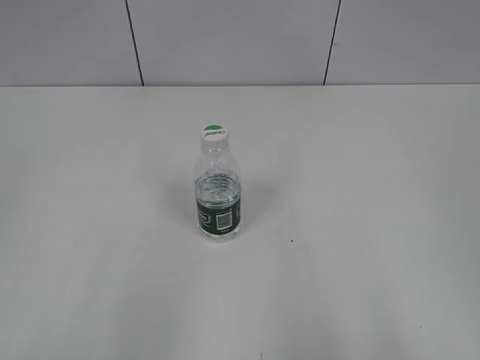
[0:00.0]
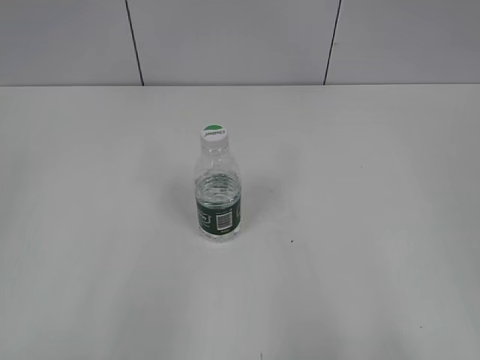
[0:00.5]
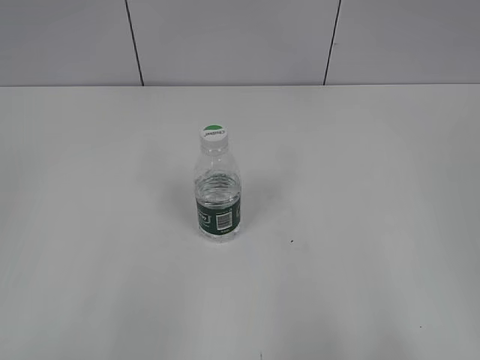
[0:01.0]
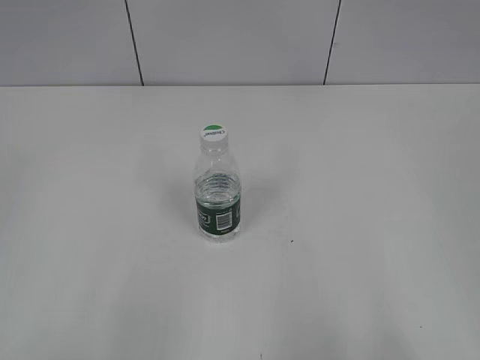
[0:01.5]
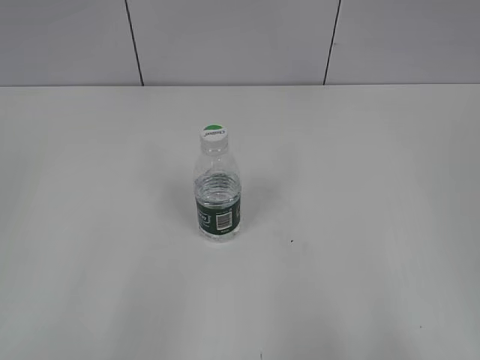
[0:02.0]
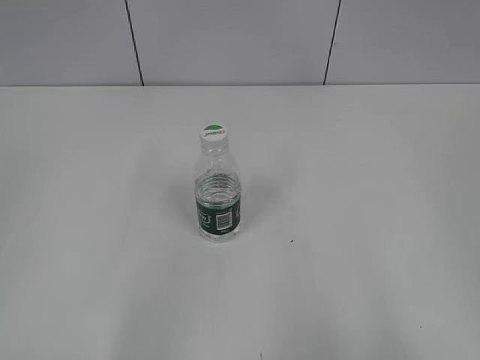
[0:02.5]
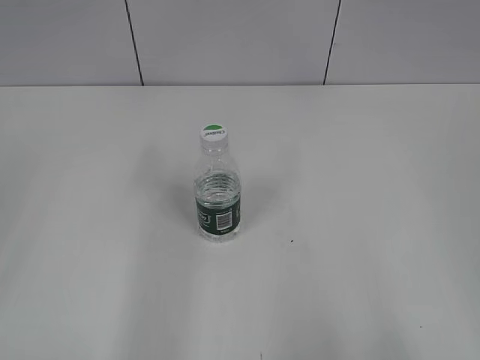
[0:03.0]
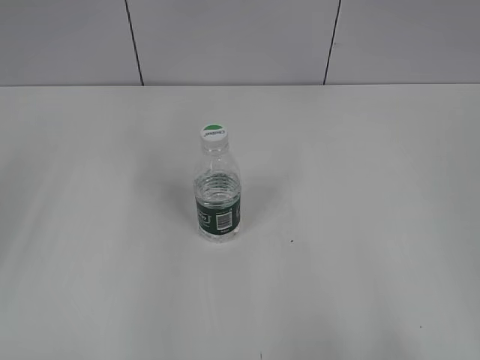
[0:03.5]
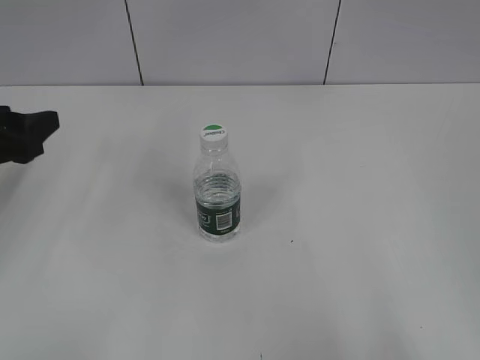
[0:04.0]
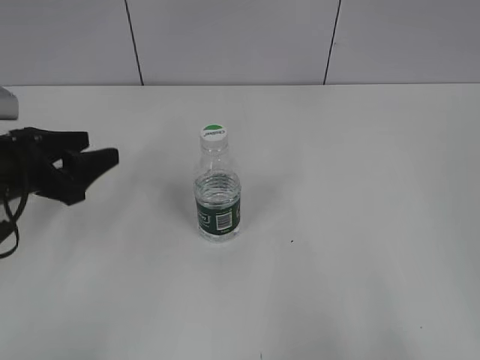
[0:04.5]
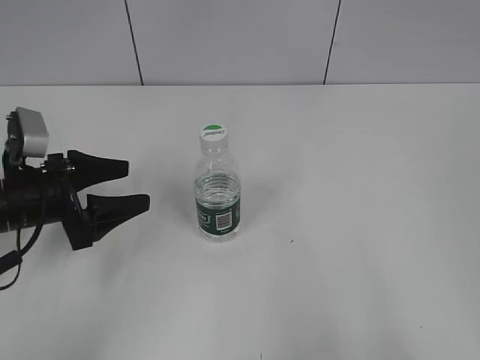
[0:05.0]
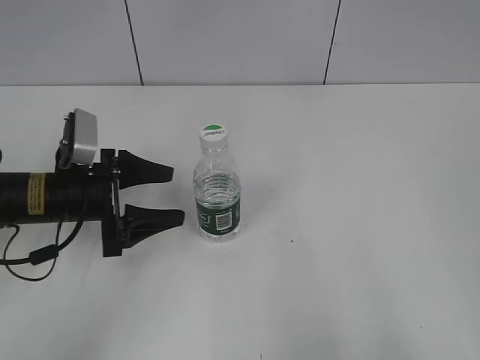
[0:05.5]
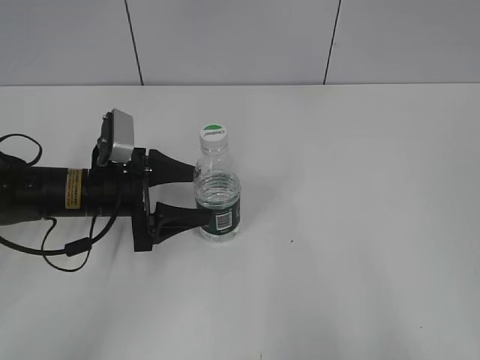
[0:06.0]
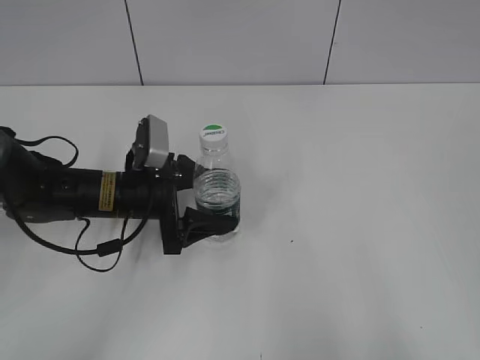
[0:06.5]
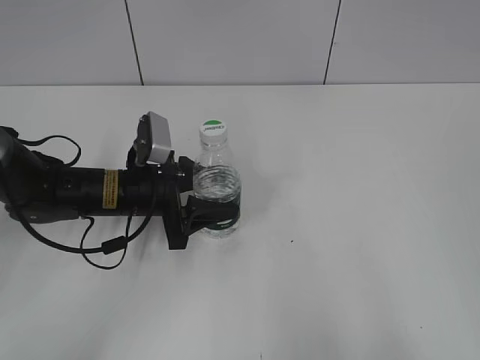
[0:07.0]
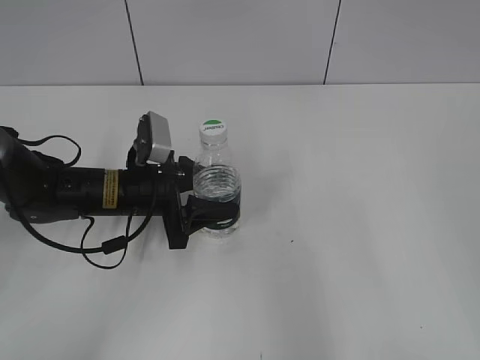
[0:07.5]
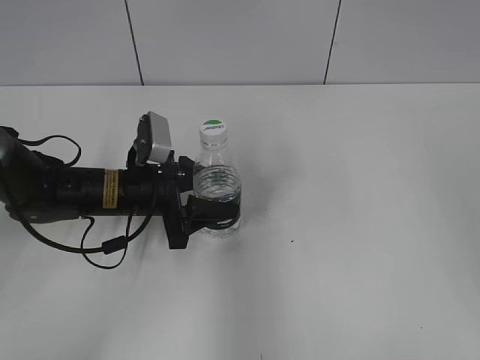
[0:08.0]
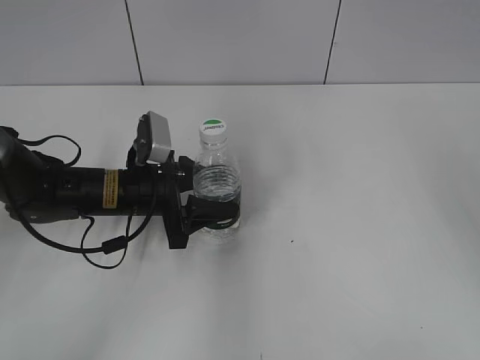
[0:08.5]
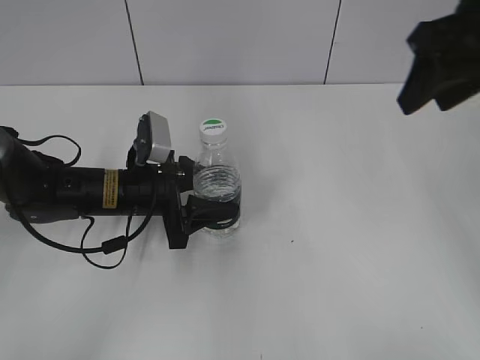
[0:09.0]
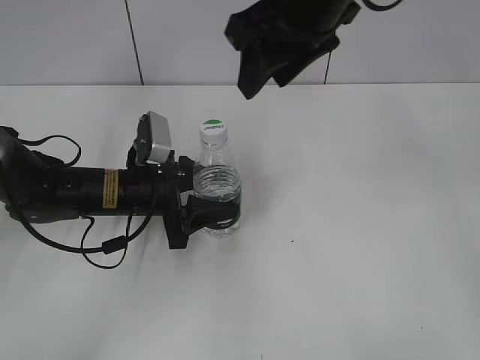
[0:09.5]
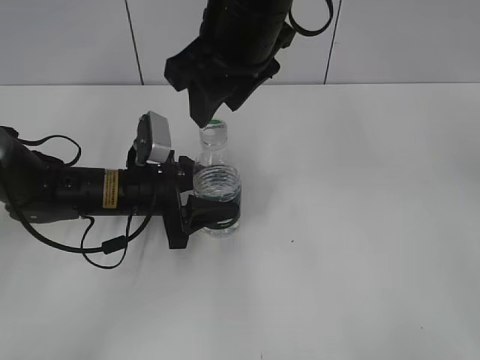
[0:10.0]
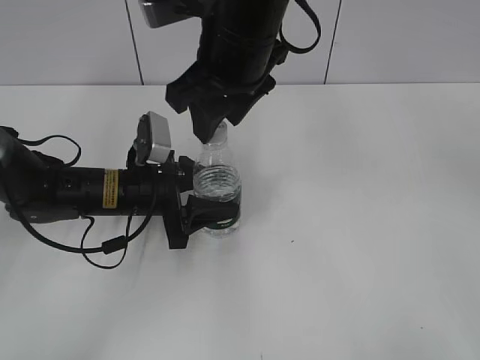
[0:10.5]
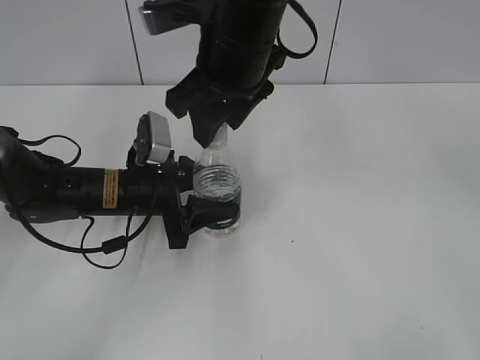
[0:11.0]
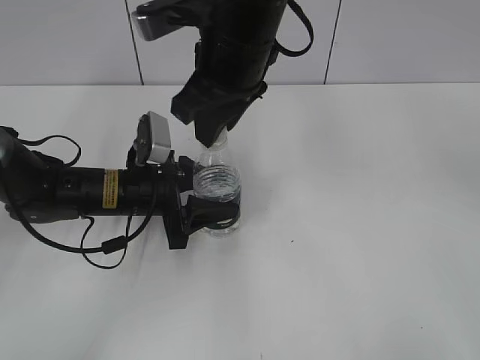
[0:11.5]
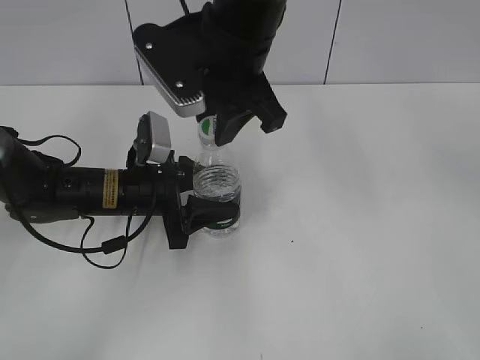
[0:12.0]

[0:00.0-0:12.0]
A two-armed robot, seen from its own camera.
Step, 0:00.0 to 0:07.0: Grasp the bottle and move it to the center of the table with the left gripper.
0:02.0 to 0:04.0: The left gripper is displaced forward by approximately 25 cm.
0:04.0 to 0:06.0: The left gripper travels to the right, downward and forward by about 15 cm.
0:06.0 to 0:08.0: The left gripper closes; the right gripper goes some 15 cm forward.
0:08.0 to 0:10.0: The right gripper heads to the left and forward, covering some 35 cm, and closes its fingers.
0:10.0 to 0:12.0: The right gripper closes.

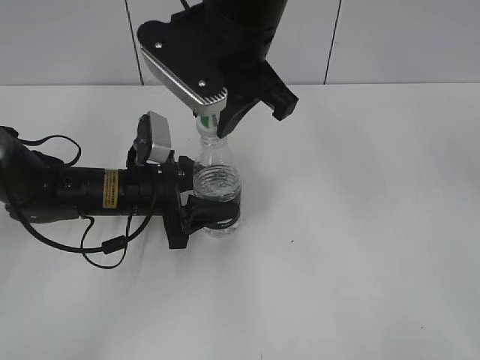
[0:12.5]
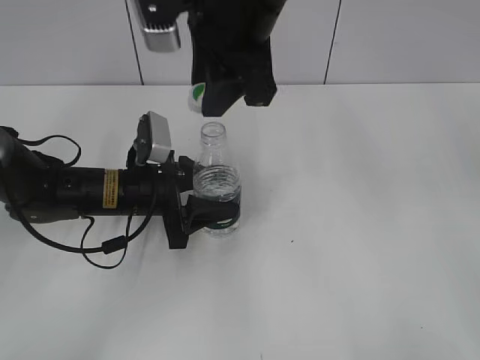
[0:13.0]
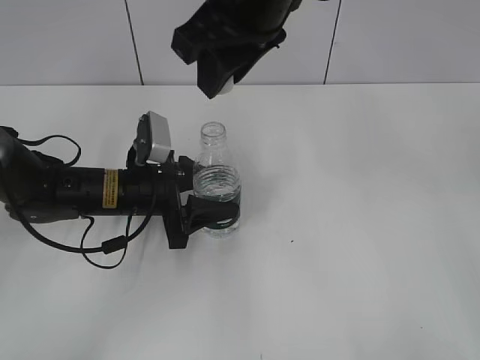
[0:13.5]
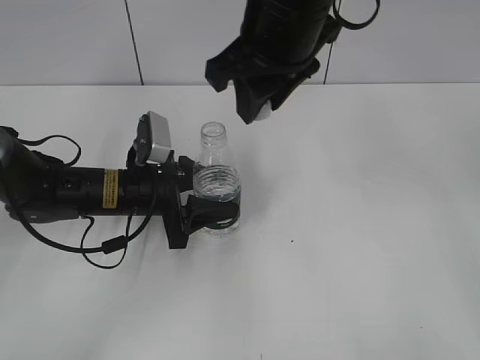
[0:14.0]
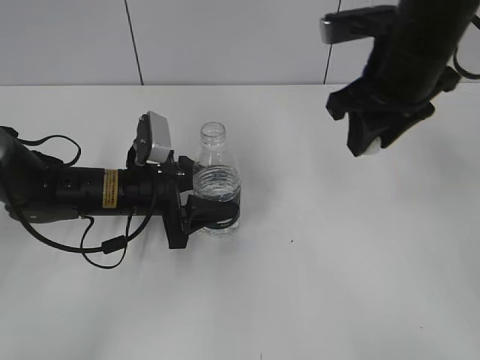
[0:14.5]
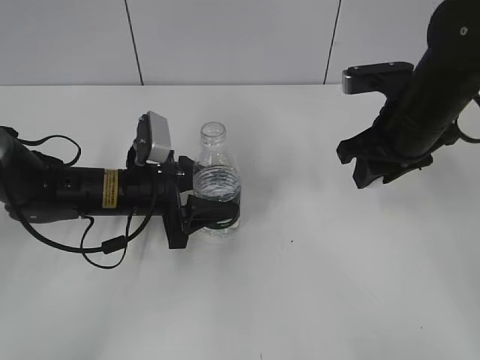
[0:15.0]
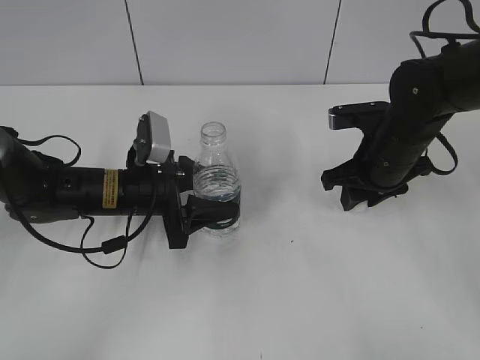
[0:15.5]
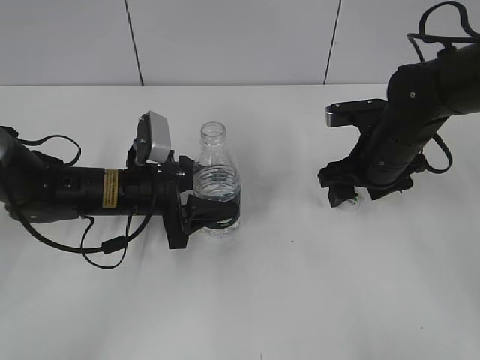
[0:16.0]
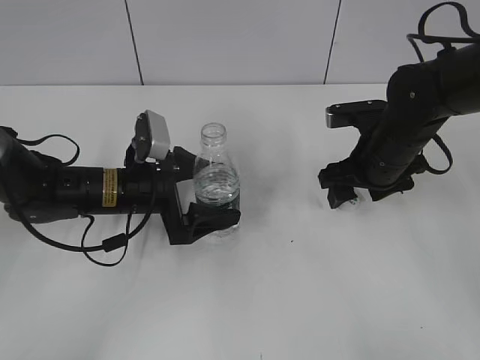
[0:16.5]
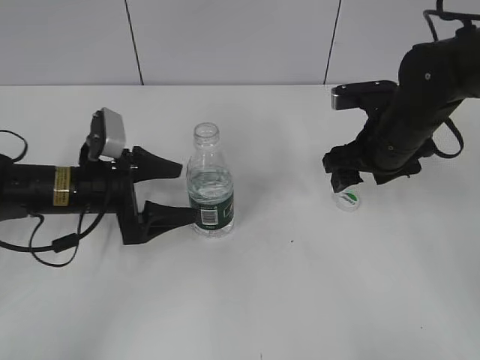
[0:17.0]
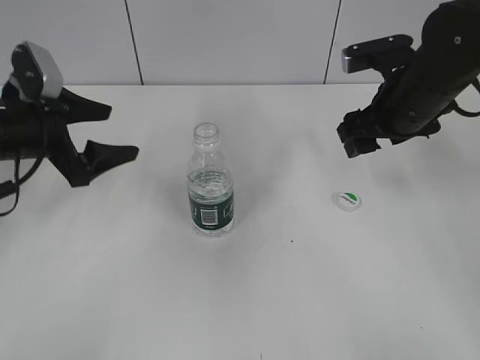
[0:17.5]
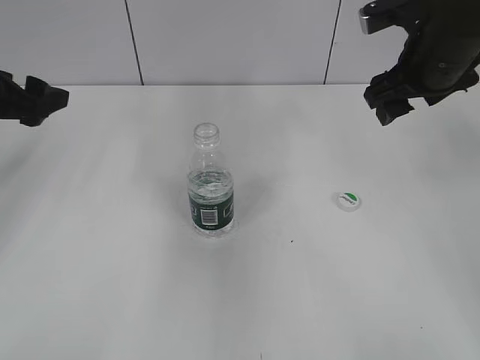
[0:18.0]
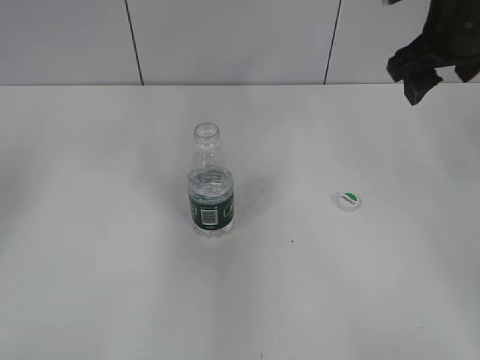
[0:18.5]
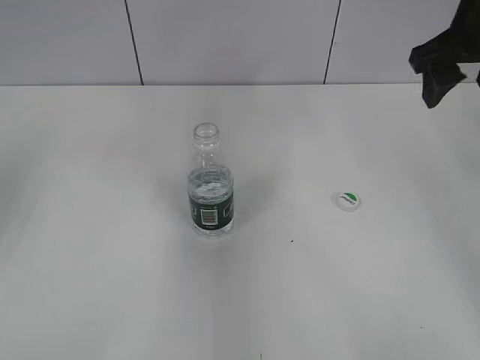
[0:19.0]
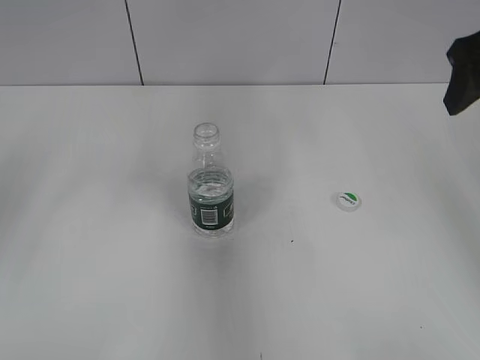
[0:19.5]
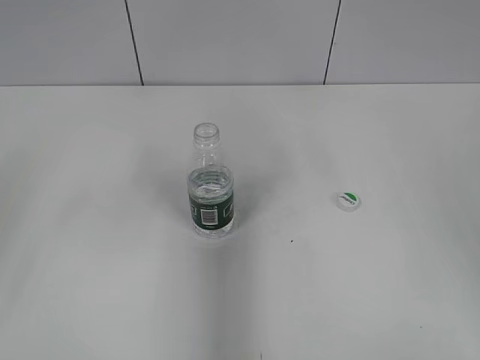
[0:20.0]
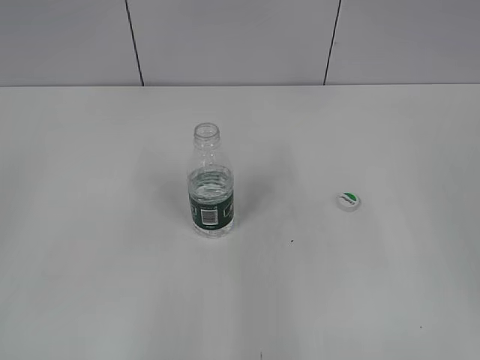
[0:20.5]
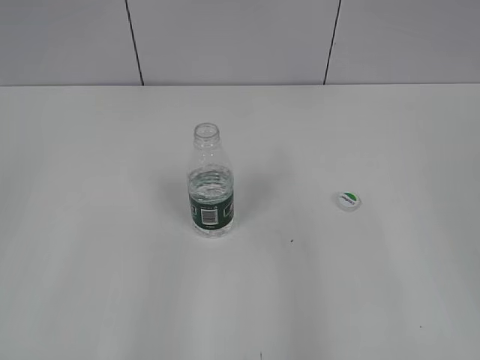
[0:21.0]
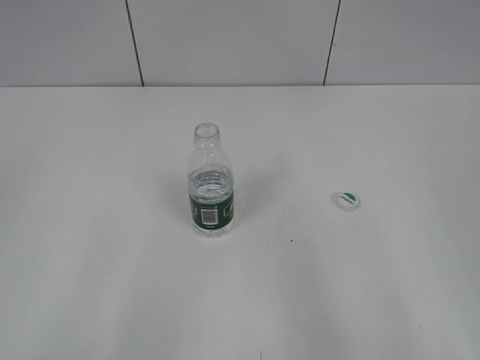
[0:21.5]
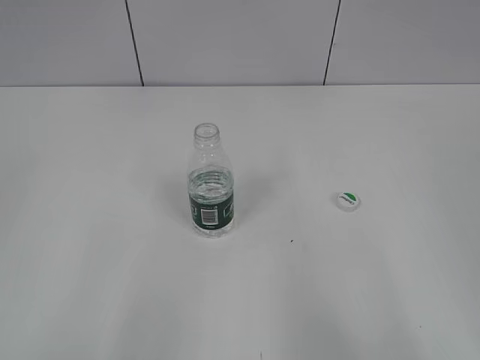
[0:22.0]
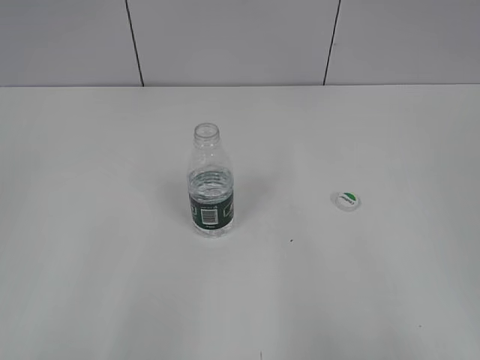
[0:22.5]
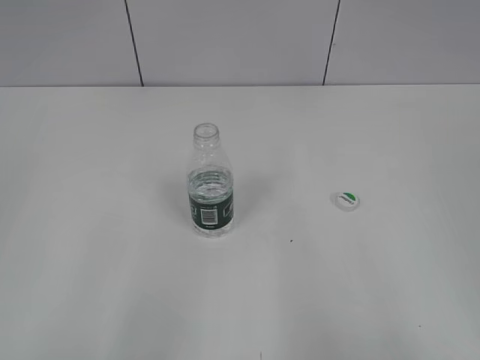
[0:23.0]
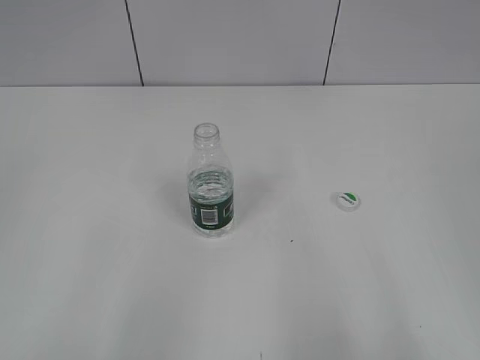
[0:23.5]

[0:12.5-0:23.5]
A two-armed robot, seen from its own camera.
Step, 0:13.0 to 0:16.0: Place the bottle cap on the table with the right gripper.
Step, 0:16.5 to 0:17.0: Place the bottle on the table with the left gripper.
0:12.5 to 0:14.5: The right gripper goes roughly 15 cm to the right.
0:14.5 to 0:16.0: The right gripper goes roughly 15 cm downward, and opens up.
0:16.0 to 0:18.0: The left gripper travels to the left and upward by roughly 20 cm, and opens up, while the right gripper shifts roughly 10 cm upward.
0:18.0 to 0:20.0: The right gripper moves backward, upward and to the right, about 15 cm. Meanwhile the left gripper travels backward by about 15 cm.
0:20.0 to 0:21.5: Both grippers travel together backward, roughly 20 cm.
